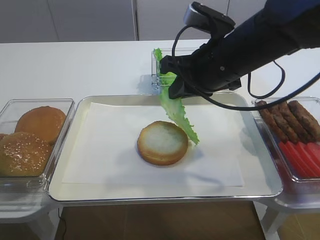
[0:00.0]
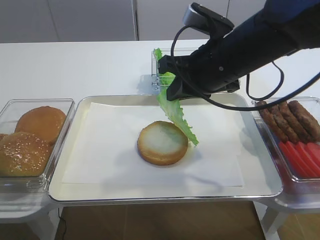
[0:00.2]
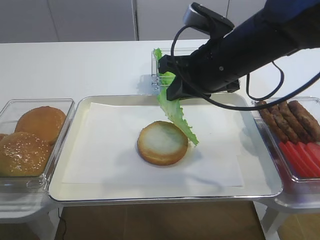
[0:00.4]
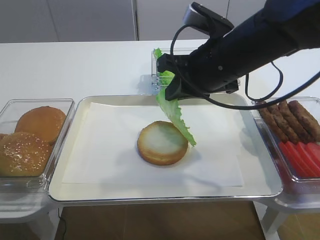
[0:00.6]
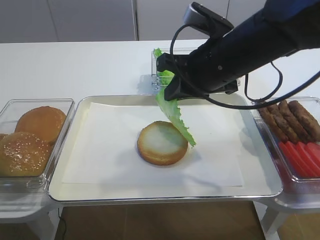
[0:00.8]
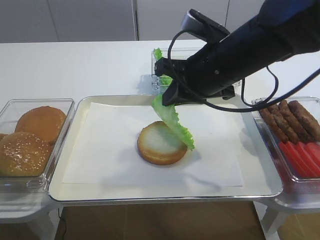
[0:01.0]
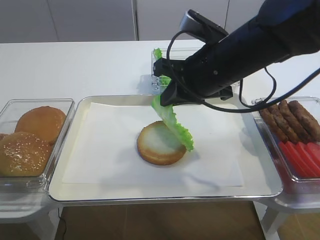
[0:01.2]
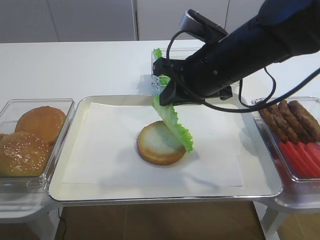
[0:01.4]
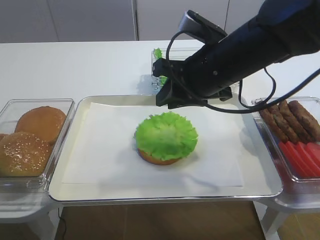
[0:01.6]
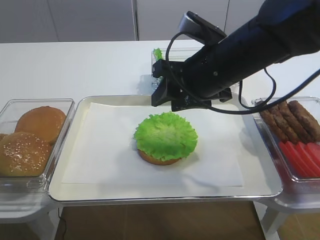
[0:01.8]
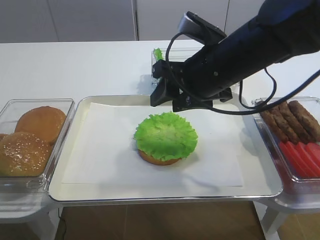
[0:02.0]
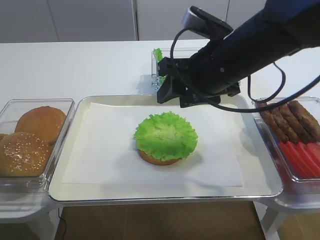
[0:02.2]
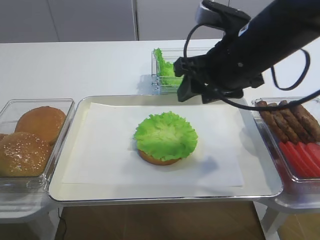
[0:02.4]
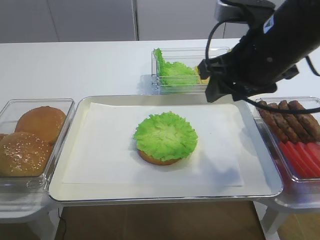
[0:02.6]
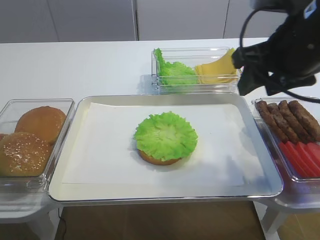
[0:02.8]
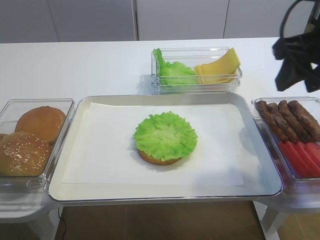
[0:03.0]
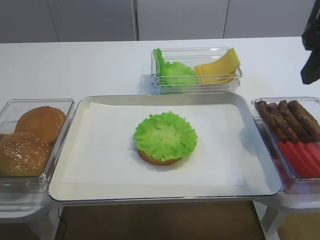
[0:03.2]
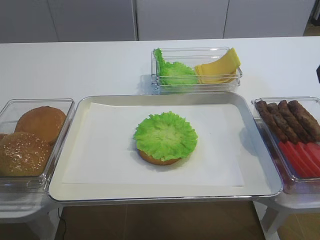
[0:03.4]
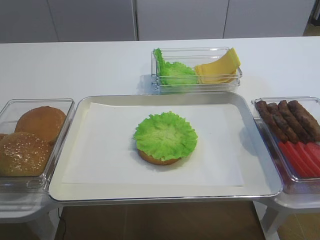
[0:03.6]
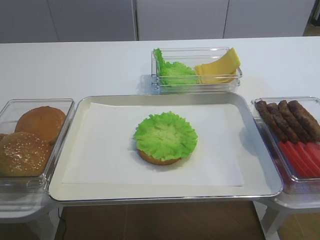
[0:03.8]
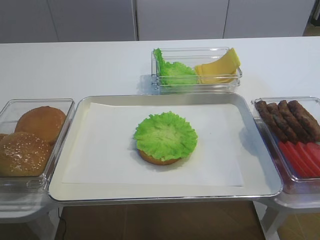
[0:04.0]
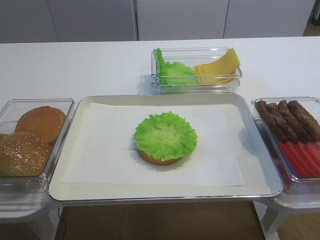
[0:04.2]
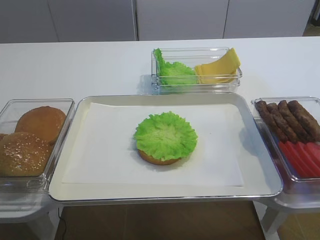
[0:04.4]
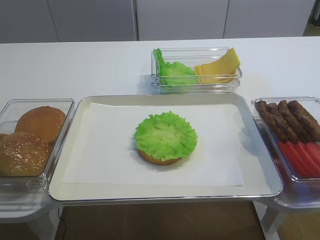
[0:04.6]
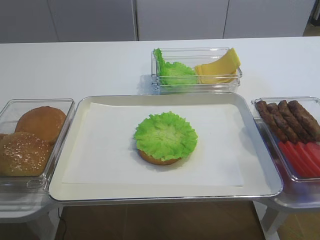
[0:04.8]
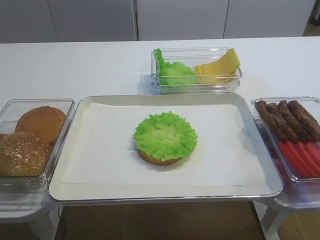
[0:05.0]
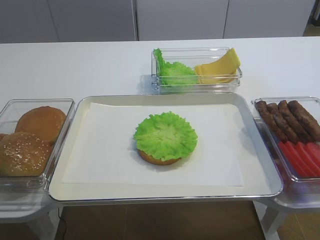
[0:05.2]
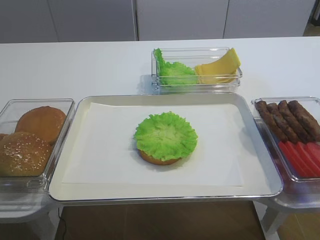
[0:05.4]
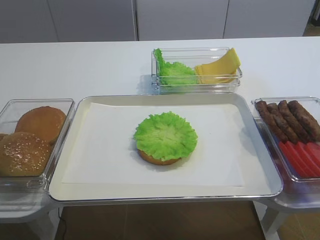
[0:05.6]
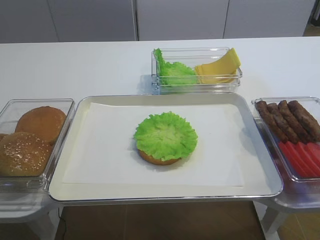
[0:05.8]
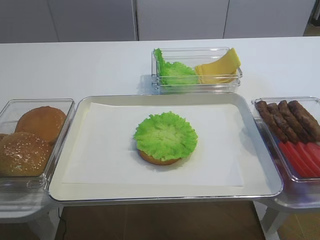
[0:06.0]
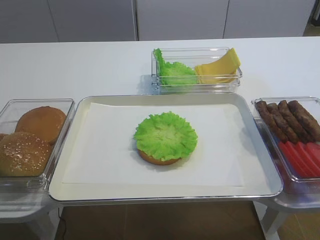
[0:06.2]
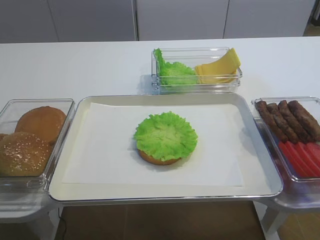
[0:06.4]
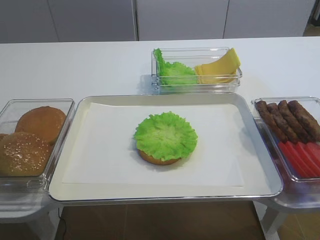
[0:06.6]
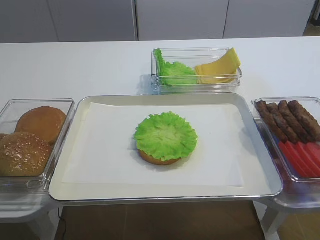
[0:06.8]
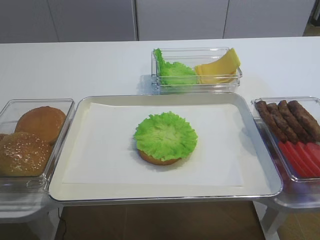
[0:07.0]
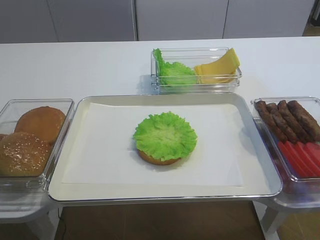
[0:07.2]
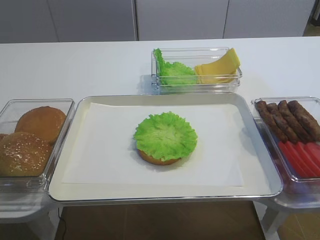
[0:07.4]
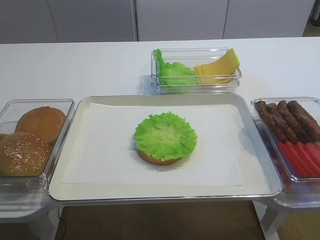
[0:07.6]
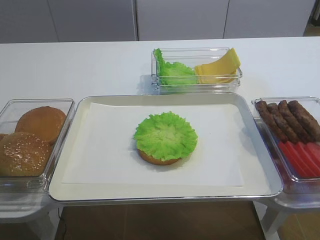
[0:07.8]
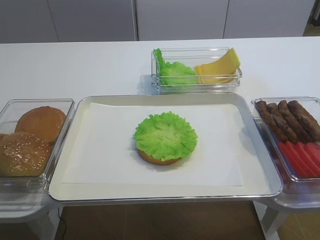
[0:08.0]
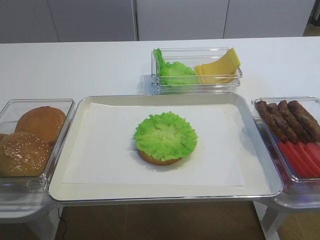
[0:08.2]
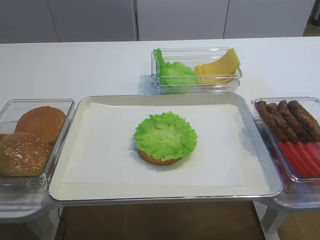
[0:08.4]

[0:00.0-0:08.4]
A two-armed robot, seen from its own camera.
Step, 0.0 to 2.2 s: Place the lettuce leaf on the bread slice with the right gripper.
0.0 to 1.4 s: The grippers move only a little.
1.4 to 2.8 s: The right gripper travels to the right and upward by roughly 10 cm, and opens its fingers.
2.8 to 4.2 s: The right gripper goes roughly 20 cm backward, upward and to the right.
4.2 to 5.6 s: The right gripper shifts about 15 cm downward and backward.

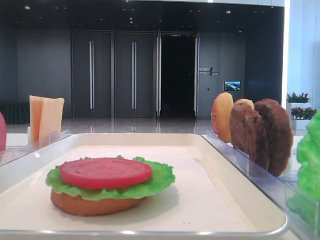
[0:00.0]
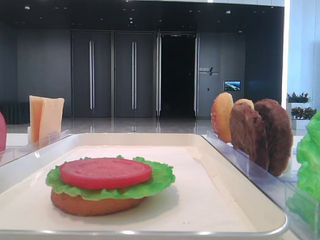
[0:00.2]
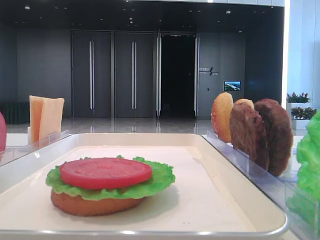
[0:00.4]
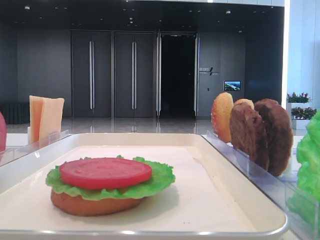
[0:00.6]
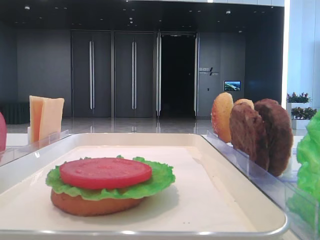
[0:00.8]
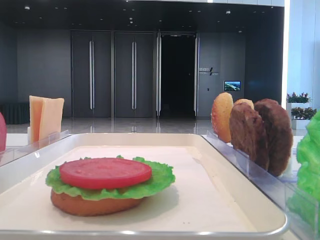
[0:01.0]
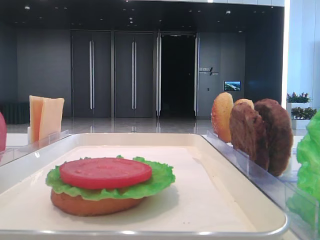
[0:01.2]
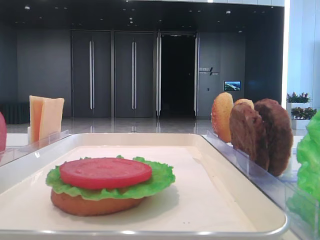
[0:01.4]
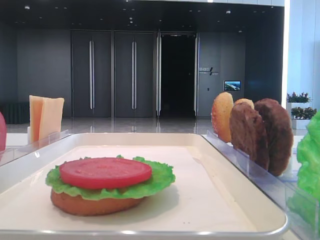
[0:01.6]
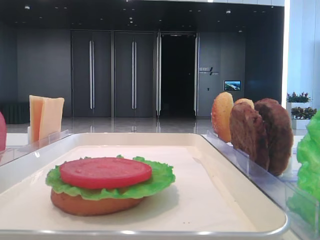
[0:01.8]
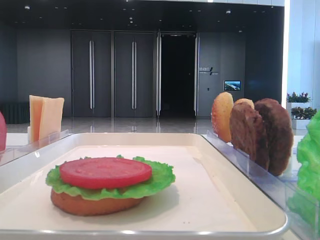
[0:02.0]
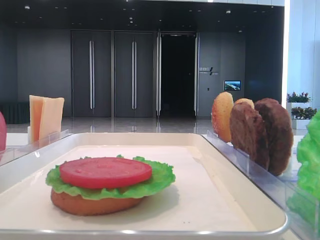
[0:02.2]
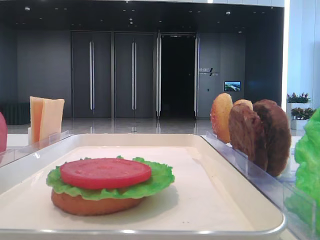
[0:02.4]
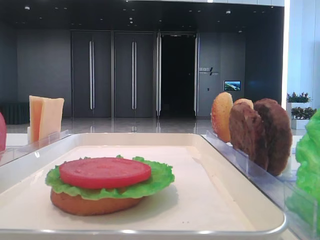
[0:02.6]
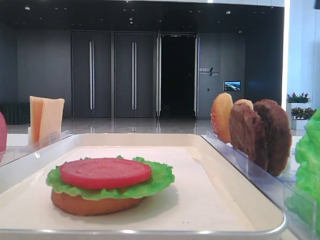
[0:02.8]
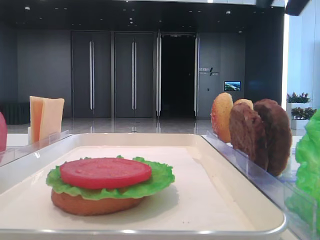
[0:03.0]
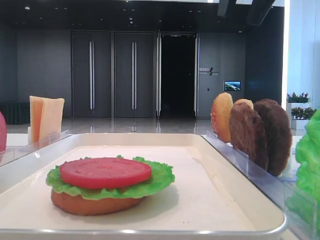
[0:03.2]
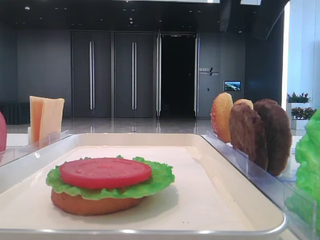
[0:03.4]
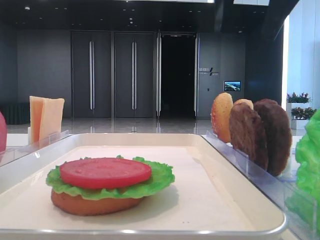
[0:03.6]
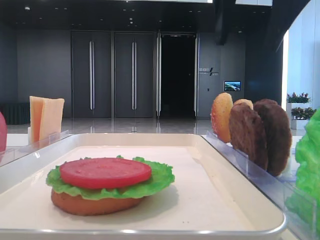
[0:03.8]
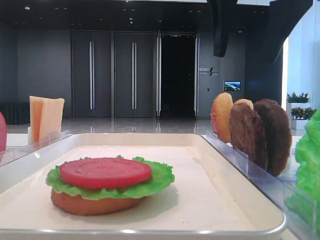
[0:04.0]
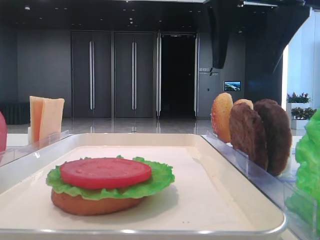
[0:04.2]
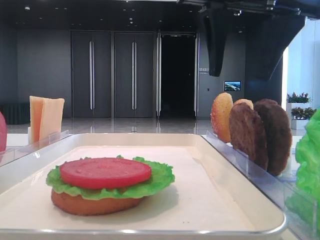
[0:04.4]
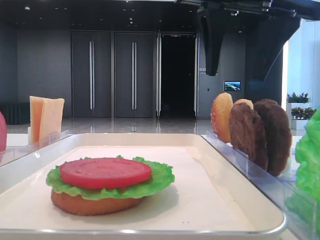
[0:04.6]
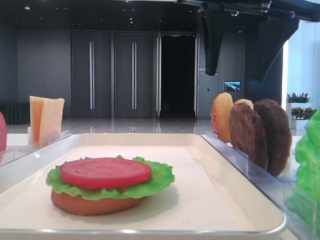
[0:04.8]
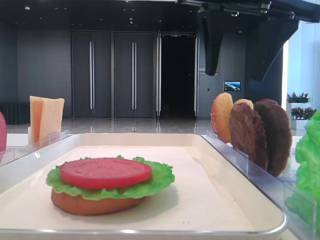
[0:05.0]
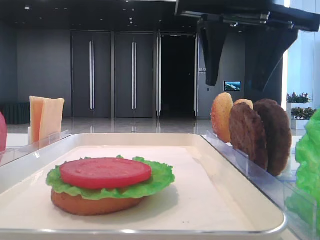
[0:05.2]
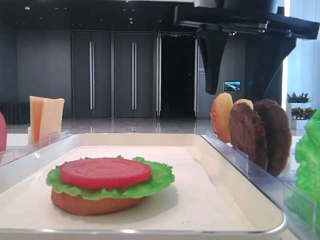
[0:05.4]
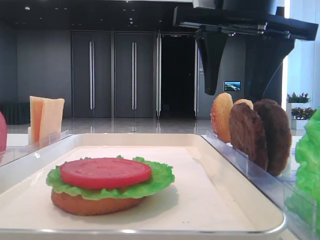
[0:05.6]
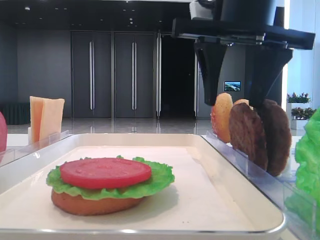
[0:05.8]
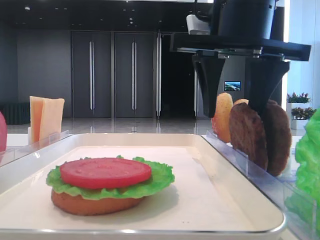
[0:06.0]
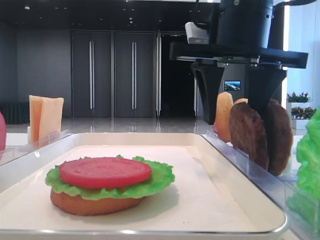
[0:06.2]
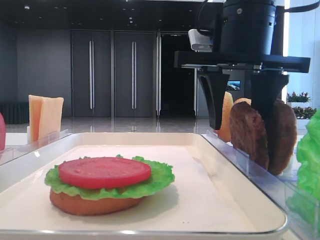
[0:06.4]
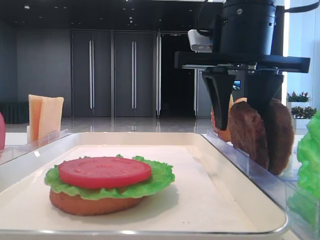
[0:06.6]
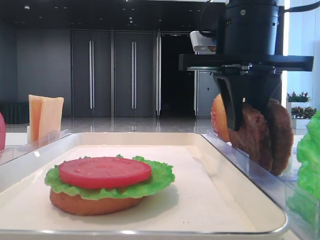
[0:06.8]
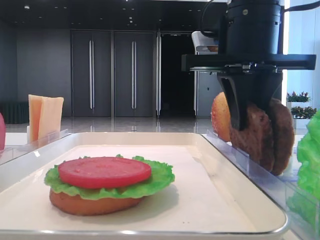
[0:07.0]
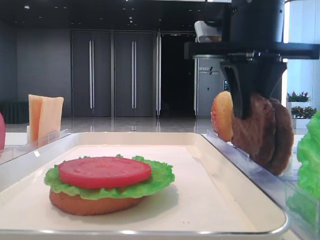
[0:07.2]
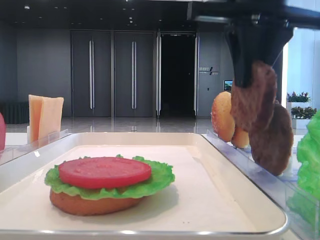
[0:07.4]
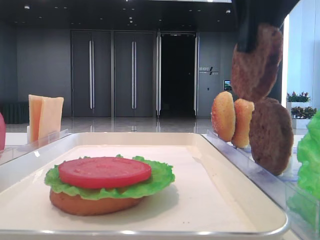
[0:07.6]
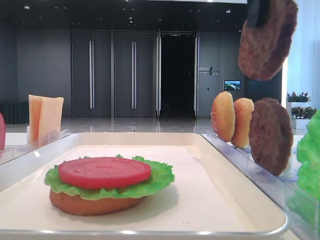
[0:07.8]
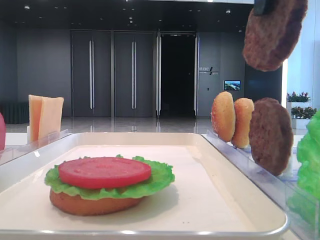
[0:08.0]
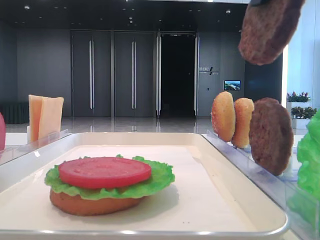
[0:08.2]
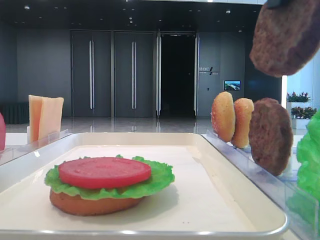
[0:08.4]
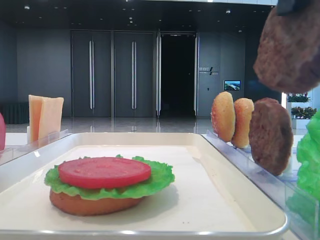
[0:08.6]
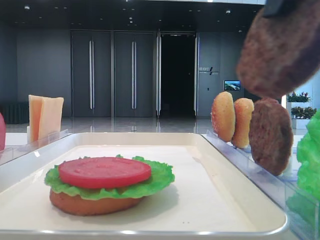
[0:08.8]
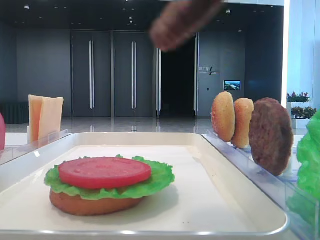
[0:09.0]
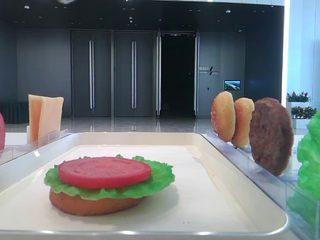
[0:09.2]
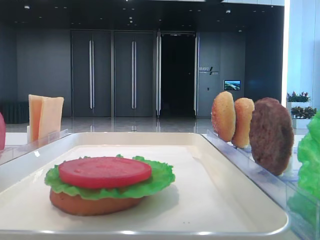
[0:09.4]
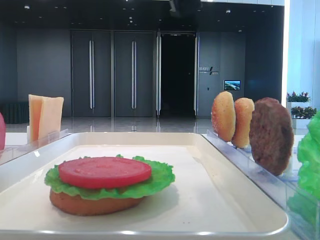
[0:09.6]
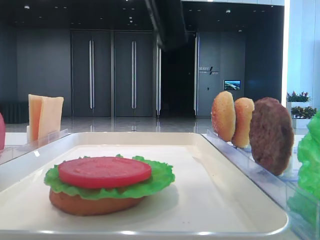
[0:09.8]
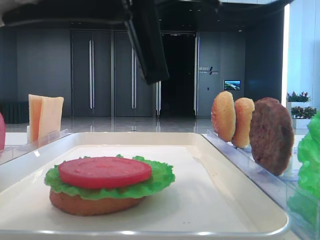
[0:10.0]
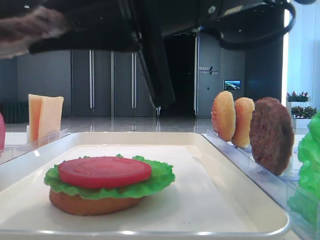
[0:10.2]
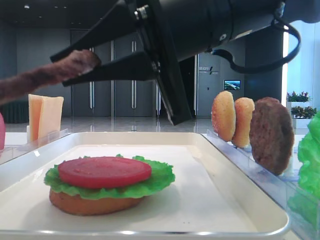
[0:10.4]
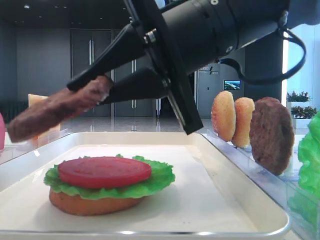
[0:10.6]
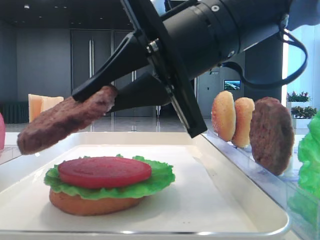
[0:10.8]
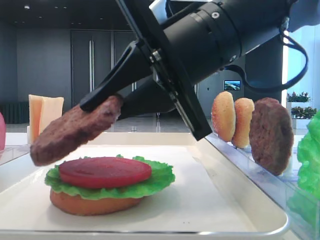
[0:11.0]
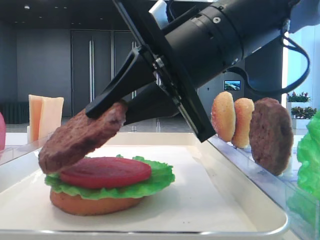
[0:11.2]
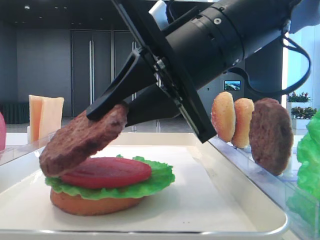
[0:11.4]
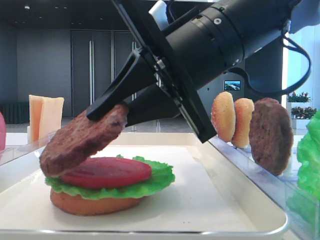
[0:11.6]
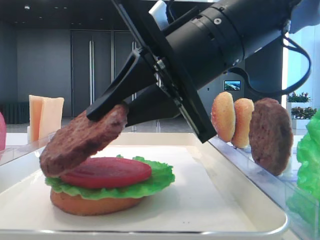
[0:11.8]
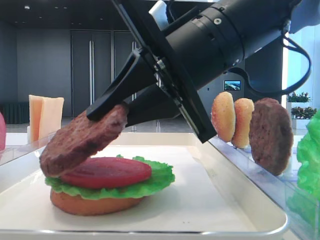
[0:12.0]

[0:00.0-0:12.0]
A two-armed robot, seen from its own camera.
Step, 0.0 to 6.8 s: Grab the patty with the right hand.
1.6 to 3.0 s: The right gripper is displaced to the left and forward by some 20 cm.
3.0 to 4.4 s: The right gripper travels downward by some 5 cm, and opens its fingers.
4.4 to 6.0 s: The right gripper shifts by some 5 cm.
6.0 to 7.6 s: The right gripper moves upward, about 5 cm, and closes up.
7.6 to 9.0 s: The right gripper goes some 10 cm backward.
9.0 to 10.4 s: The right gripper heads downward, forward and to the left, covering roughly 15 cm.

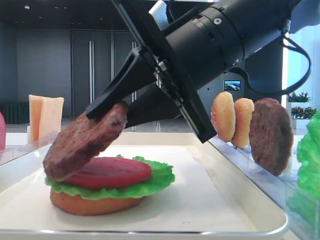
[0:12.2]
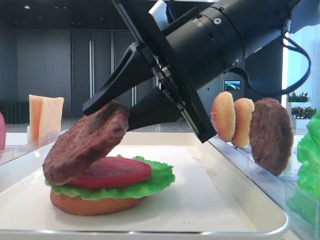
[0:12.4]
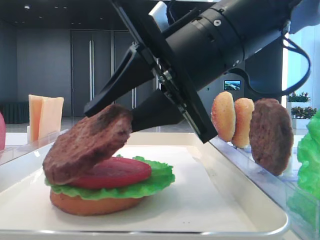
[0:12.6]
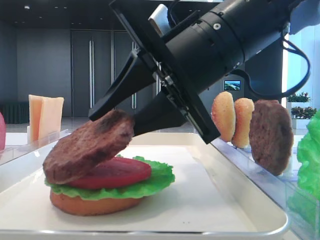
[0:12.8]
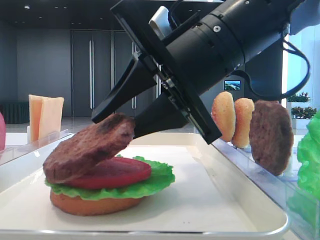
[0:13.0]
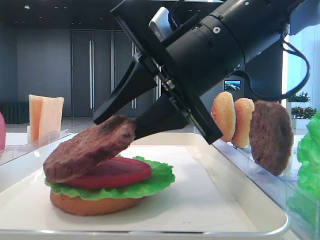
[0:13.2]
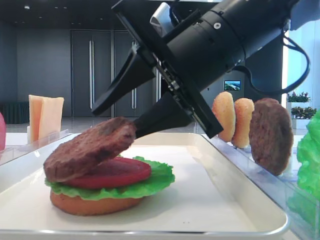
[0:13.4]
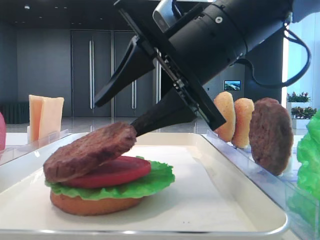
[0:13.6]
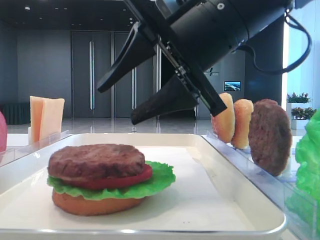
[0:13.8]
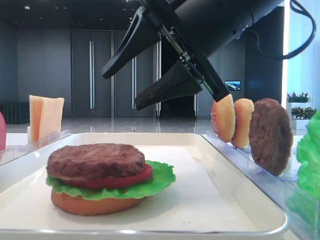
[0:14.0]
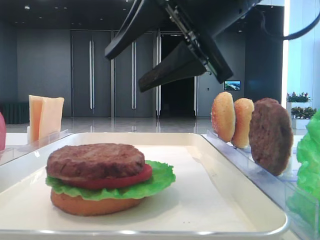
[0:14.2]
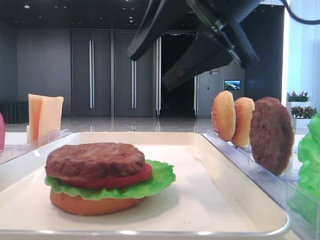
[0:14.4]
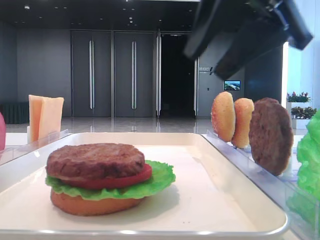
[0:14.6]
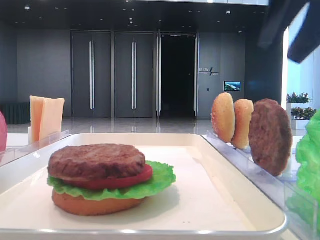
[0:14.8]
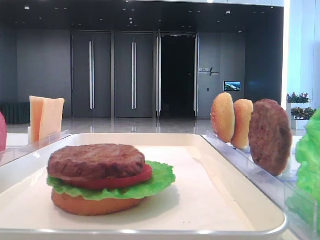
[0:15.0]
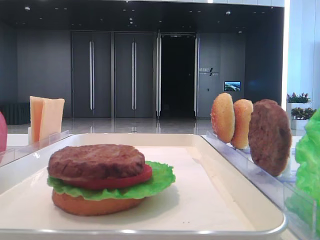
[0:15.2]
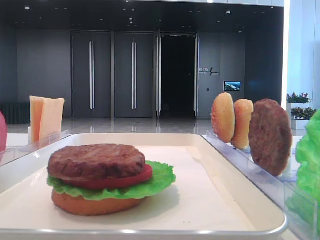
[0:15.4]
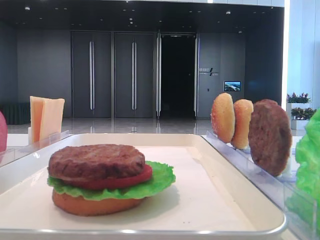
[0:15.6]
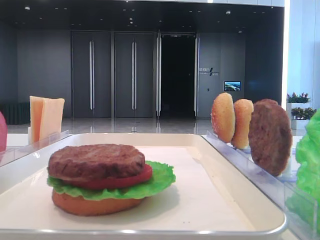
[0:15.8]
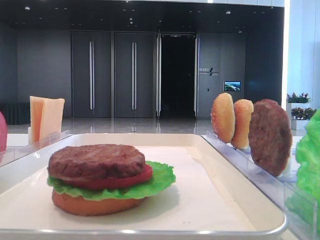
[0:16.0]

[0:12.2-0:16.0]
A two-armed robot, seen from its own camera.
12.2 to 13.4 s: The right gripper opens.
13.4 to 14.8 s: The right gripper moves to the right and upward, some 15 cm.
14.8 to 16.0 s: The right gripper travels to the right and backward by some 15 cm.
